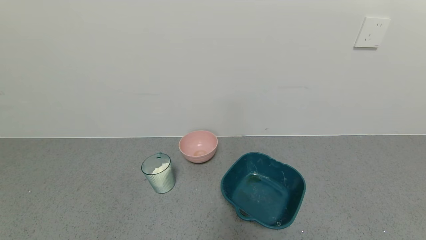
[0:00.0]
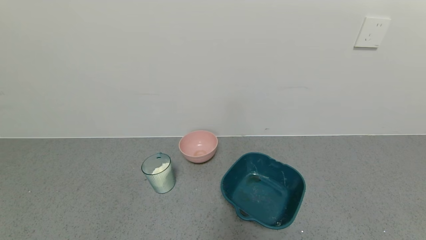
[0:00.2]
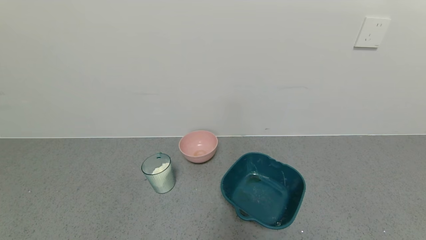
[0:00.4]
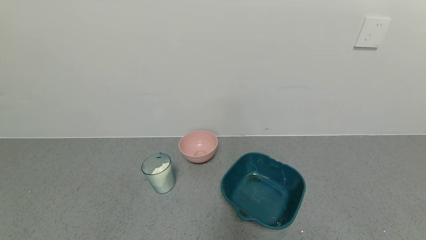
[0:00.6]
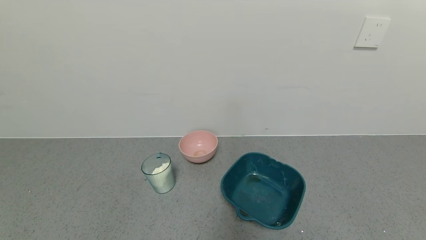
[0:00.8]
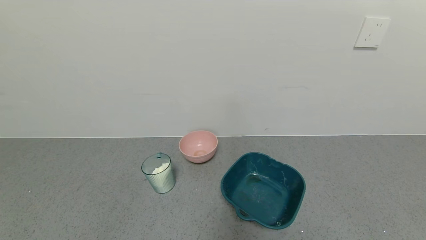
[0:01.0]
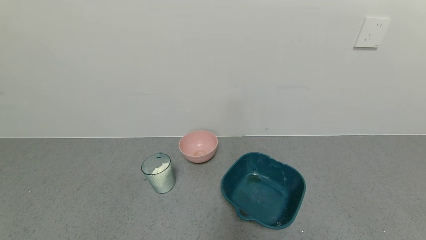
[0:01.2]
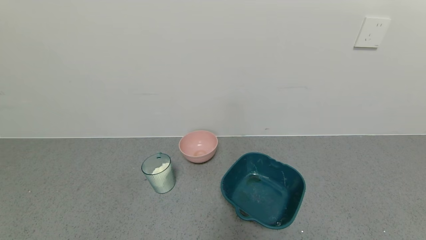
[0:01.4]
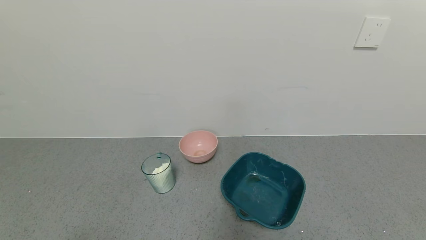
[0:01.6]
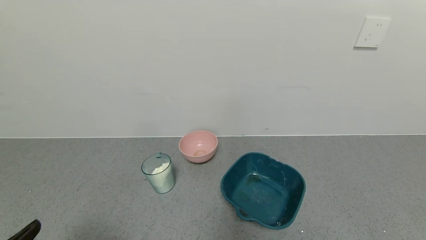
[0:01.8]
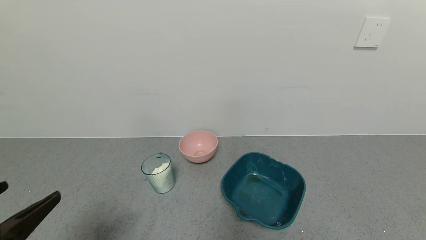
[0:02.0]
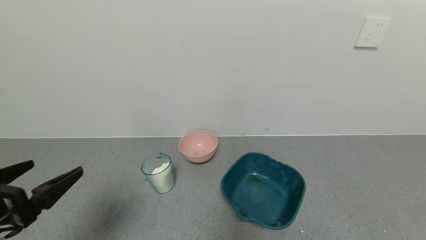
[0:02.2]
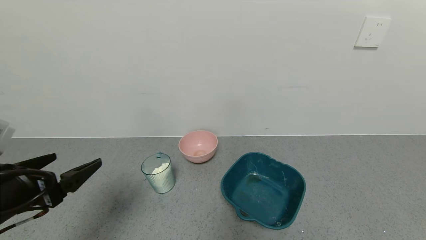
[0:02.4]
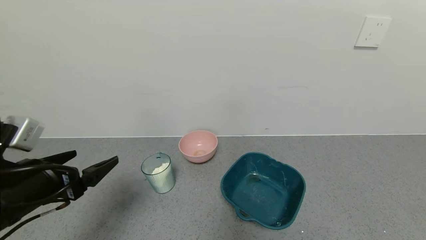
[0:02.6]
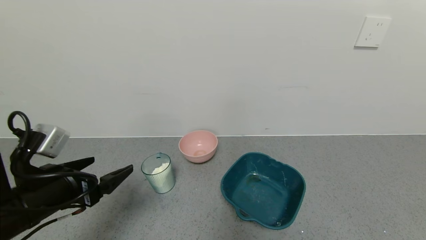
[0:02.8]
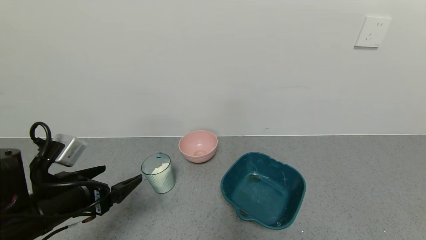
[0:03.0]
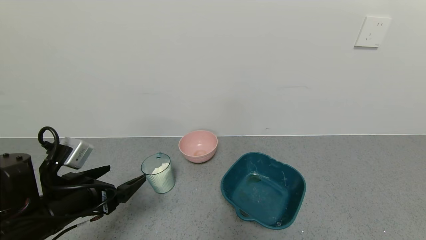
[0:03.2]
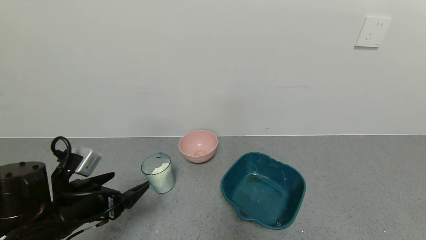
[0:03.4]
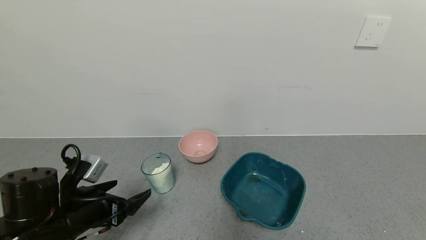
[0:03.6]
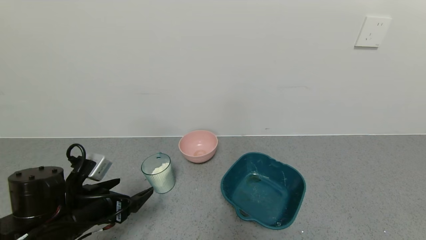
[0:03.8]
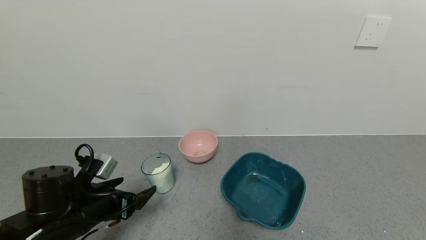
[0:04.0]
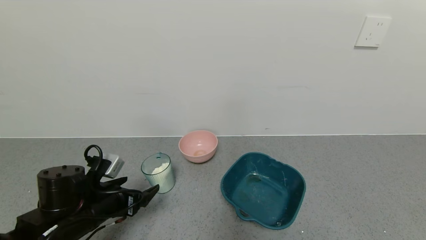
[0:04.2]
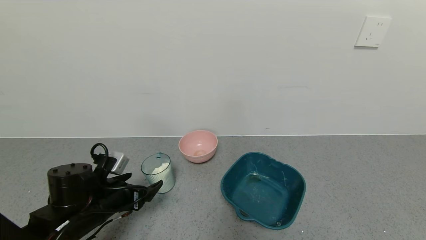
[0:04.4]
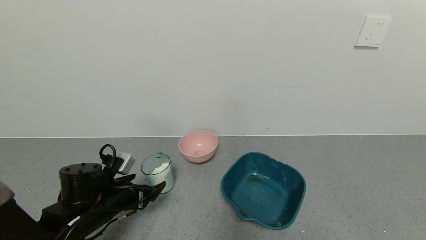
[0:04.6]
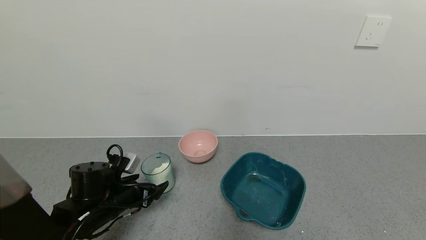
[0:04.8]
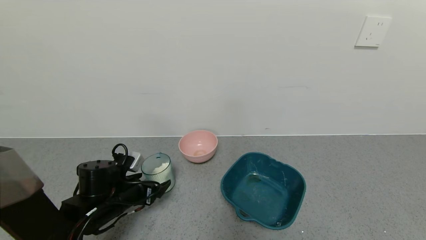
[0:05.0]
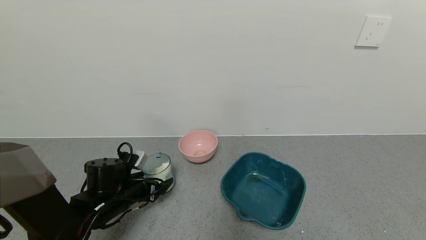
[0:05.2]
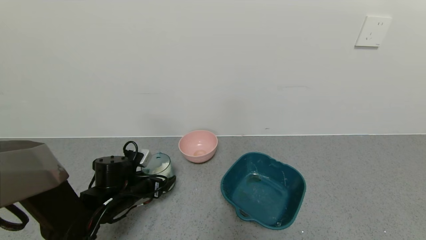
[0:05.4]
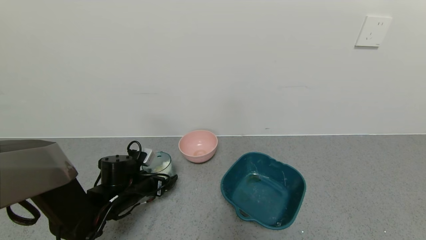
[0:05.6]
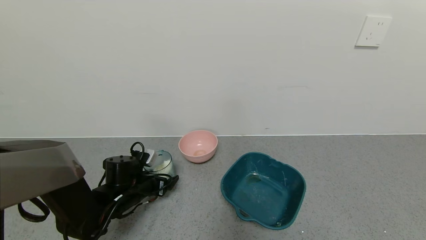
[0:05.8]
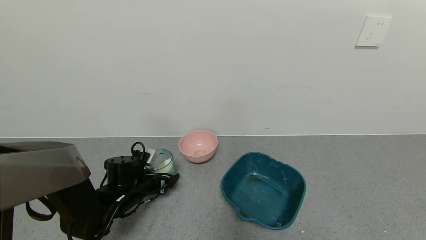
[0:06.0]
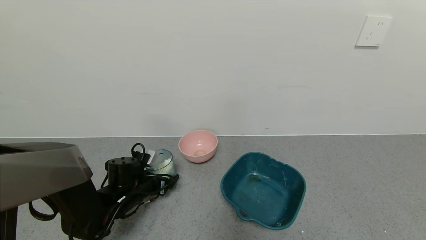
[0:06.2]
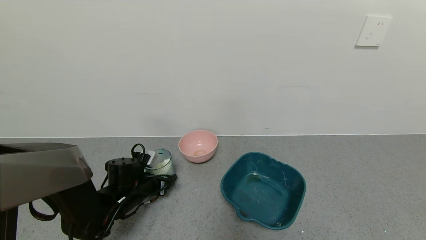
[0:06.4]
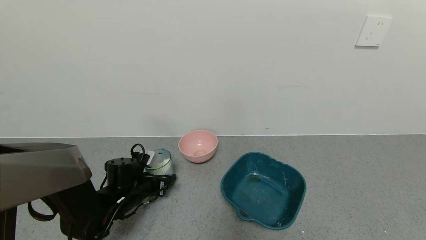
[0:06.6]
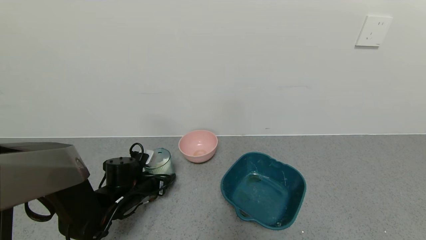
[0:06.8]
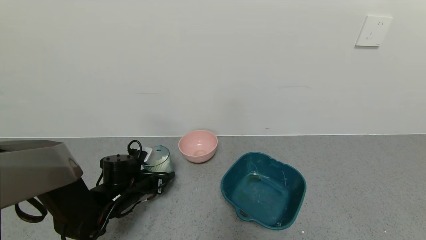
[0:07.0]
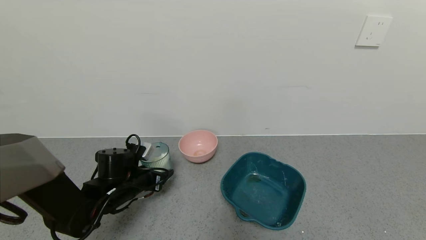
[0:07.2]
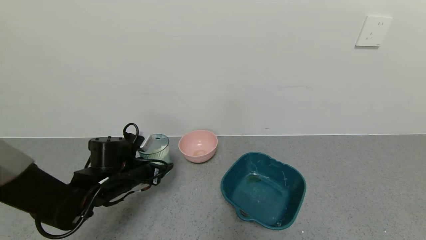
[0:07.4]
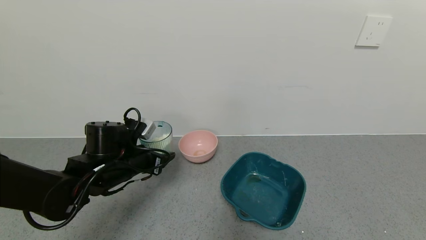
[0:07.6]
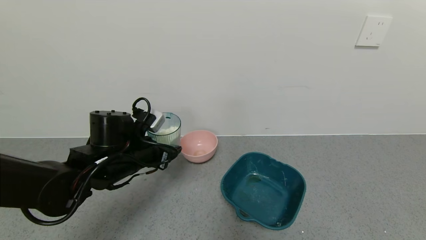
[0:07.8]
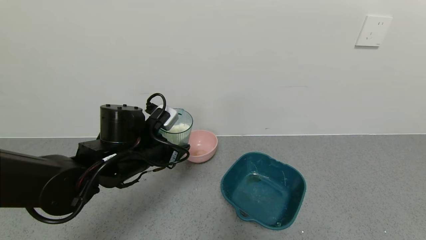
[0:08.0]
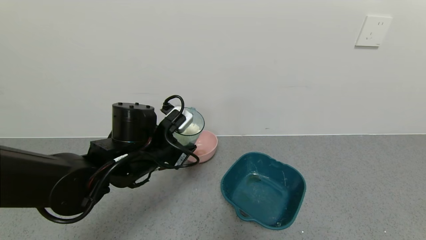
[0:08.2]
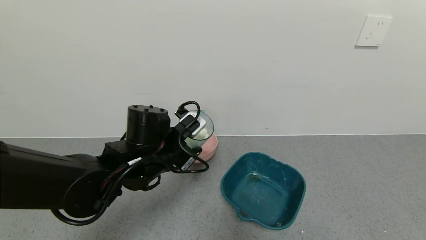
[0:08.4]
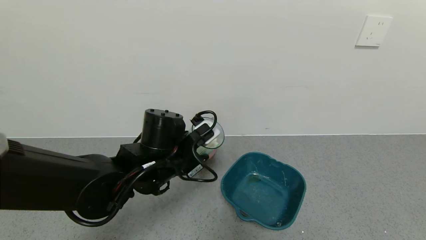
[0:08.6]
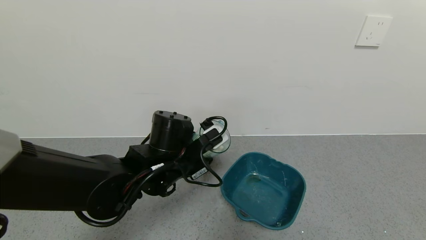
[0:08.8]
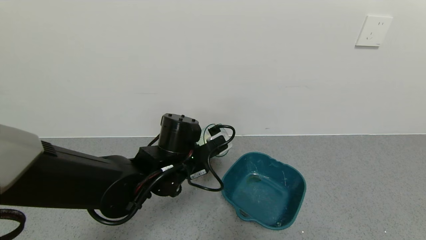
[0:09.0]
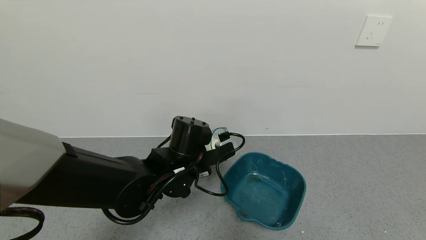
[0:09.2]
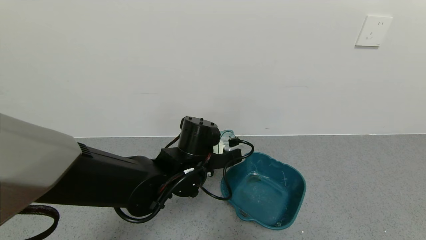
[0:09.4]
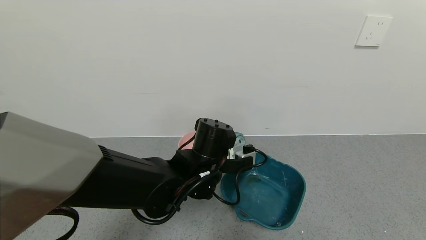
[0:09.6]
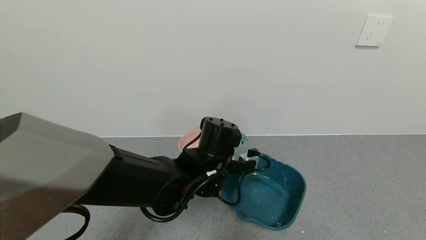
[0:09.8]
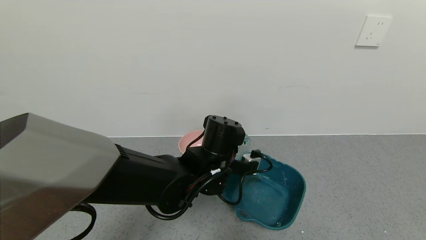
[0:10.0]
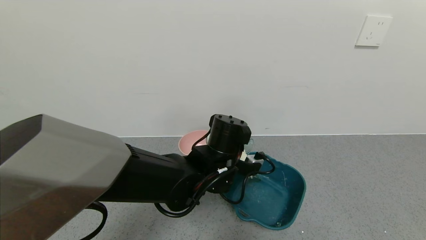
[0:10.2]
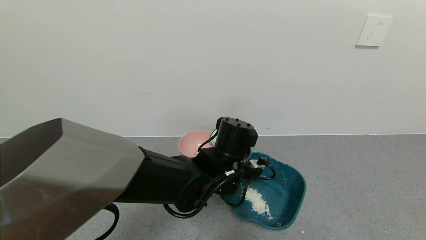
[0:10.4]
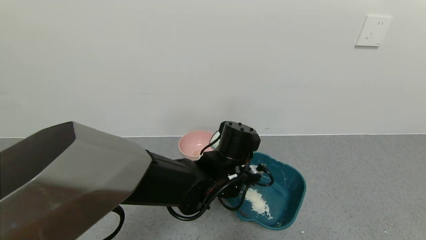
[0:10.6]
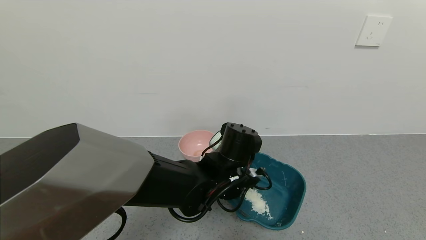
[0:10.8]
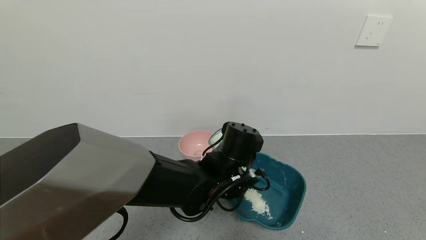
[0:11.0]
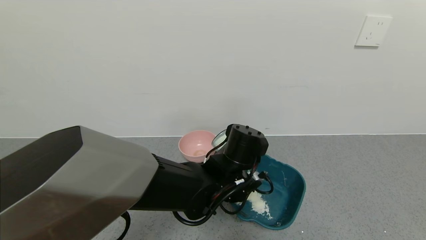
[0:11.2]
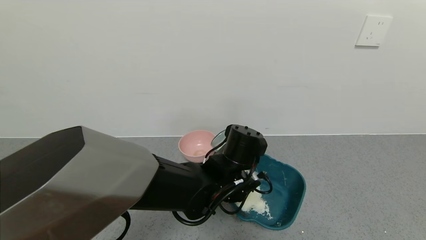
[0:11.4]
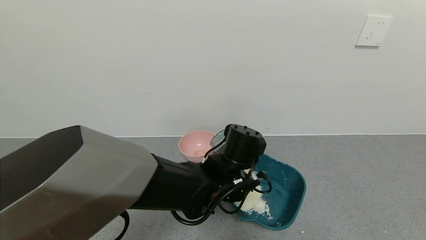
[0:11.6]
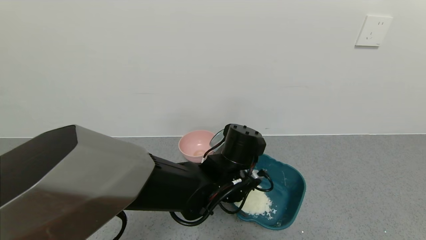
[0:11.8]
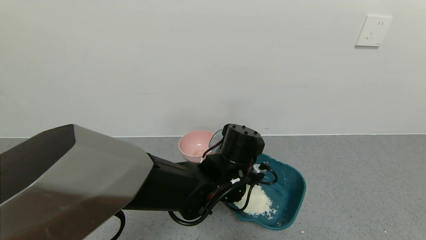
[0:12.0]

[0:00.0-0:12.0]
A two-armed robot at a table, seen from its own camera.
Task of the whole recording: use a gripper to pick up the cup and pour the powder into a bowl or tray.
Step, 0:00.0 to 0:07.2: Pick up blue cup filled with coffee powder with left gripper.
0:01.6 to 0:03.0: The left gripper travels forward by roughly 20 cm.
0:03.0 to 0:04.4: The left gripper heads downward and forward, covering approximately 10 cm.
0:04.4 to 0:06.0: The left gripper travels forward and downward by about 10 cm.
0:06.0 to 0:07.6: The left gripper moves upward, some 10 cm, and closes its fingers.
0:07.6 to 0:09.0: The left gripper goes about 15 cm to the right.
0:09.0 to 0:10.4: The left gripper travels to the right by approximately 10 cm.
0:10.4 to 0:12.0: The grippers stay close to where they were, moving slightly.

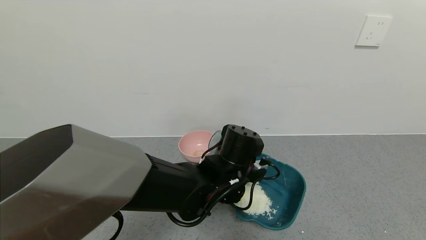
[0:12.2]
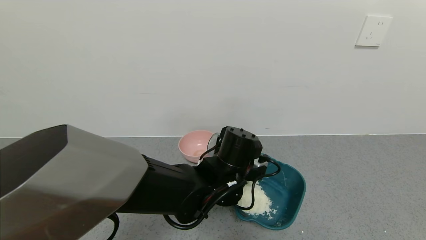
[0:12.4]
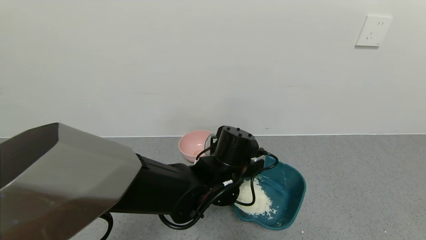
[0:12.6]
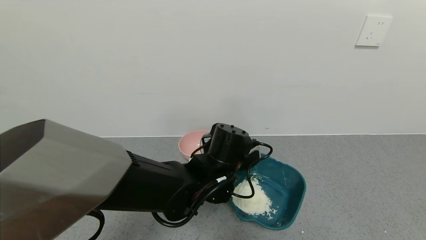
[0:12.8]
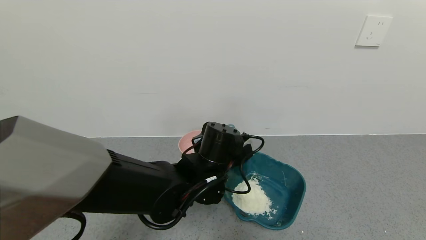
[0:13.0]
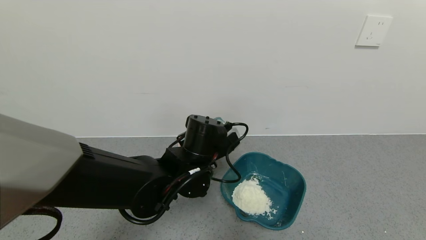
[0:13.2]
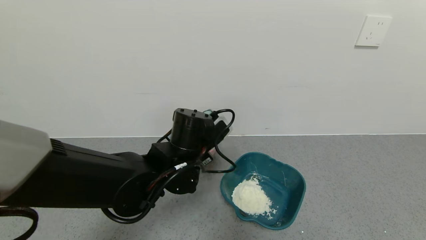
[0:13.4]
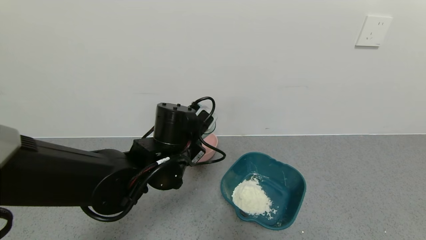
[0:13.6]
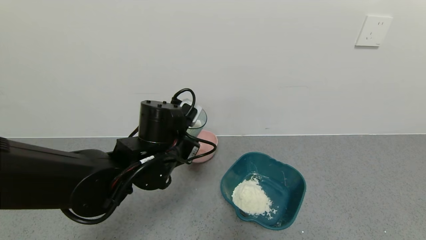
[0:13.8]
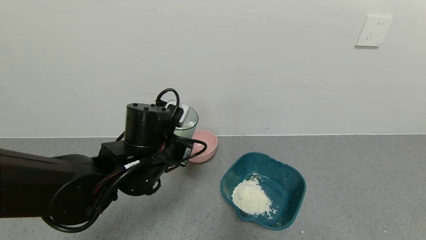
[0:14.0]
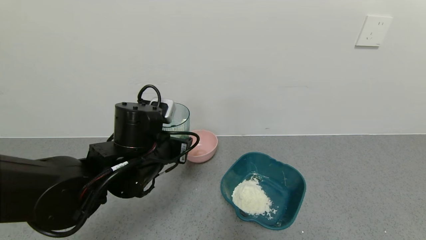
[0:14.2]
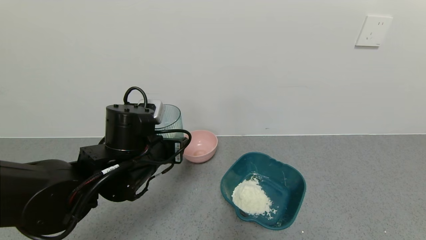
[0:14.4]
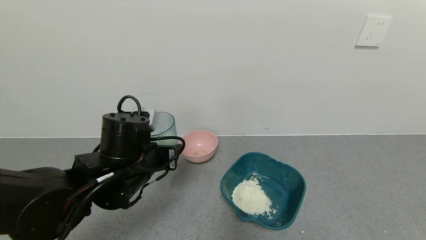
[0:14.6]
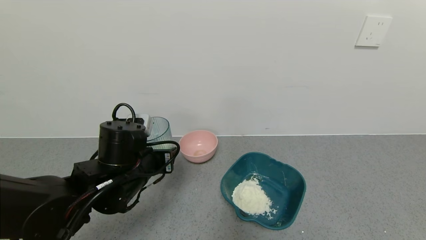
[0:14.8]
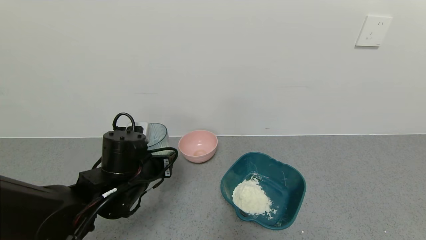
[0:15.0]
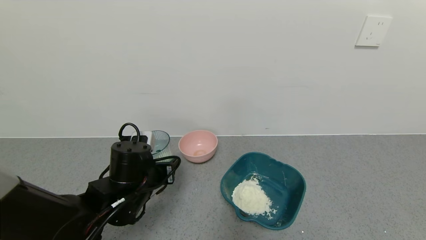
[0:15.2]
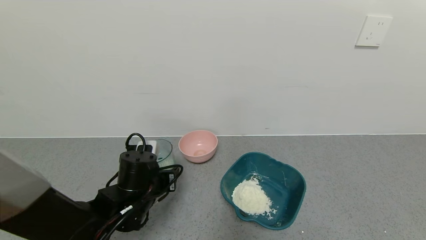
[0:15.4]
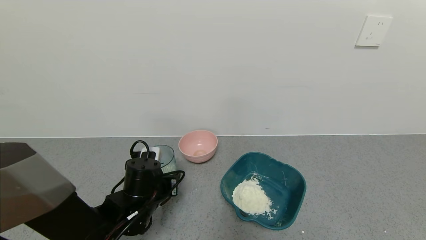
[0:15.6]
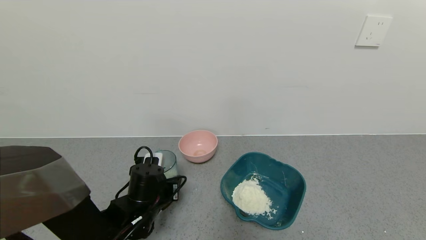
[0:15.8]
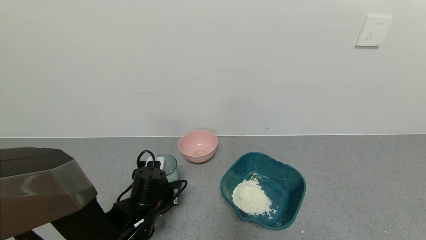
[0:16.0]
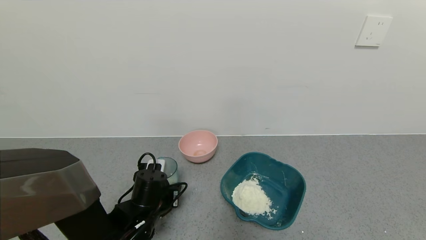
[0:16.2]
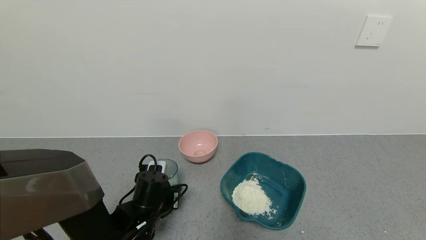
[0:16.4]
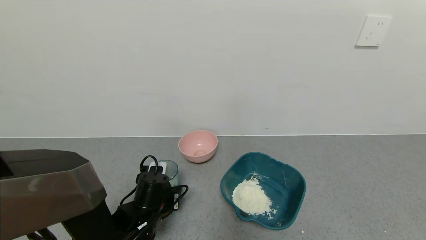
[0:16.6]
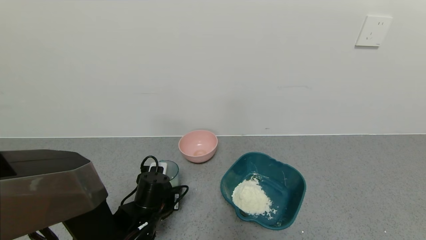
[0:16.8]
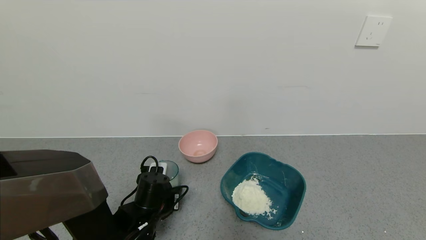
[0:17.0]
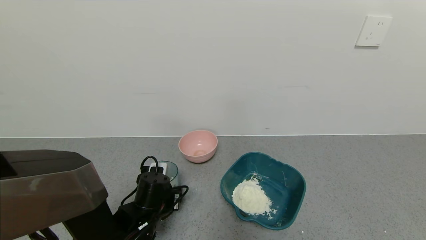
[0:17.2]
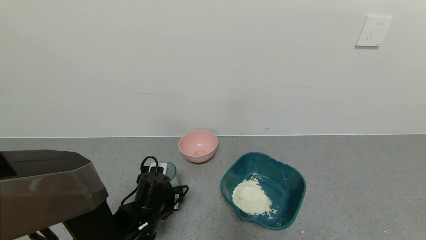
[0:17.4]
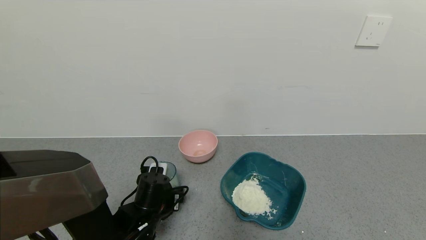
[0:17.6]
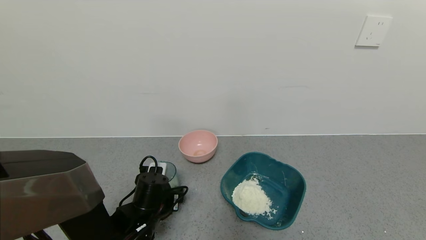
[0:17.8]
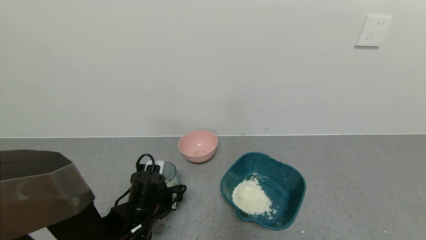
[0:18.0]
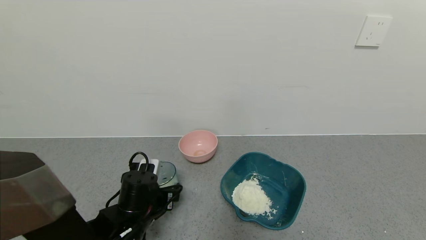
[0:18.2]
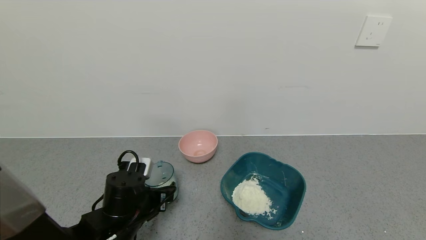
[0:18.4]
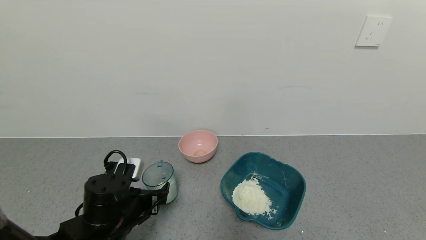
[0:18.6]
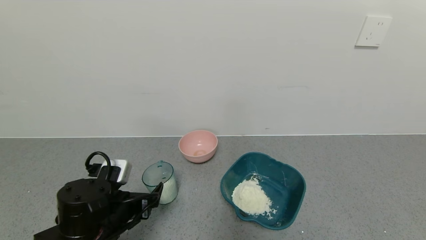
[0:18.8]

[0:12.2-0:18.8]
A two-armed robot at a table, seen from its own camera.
Task of the whole recording: use a gripper to pick up the cup and pour the powder into a bowl or tray.
Step, 0:12.8 to 0:17.4: Place blue cup with coffee powder on the table with left gripper.
0:12.2 to 0:13.8: The left gripper goes some 10 cm to the left.
0:13.8 to 0:15.4: The left gripper goes about 10 cm downward and to the left.
0:15.4 to 0:17.2: The left gripper shifts approximately 5 cm downward, and opens up.
0:17.2 to 0:18.8: The left gripper travels backward and upward by roughly 10 cm, and opens.
